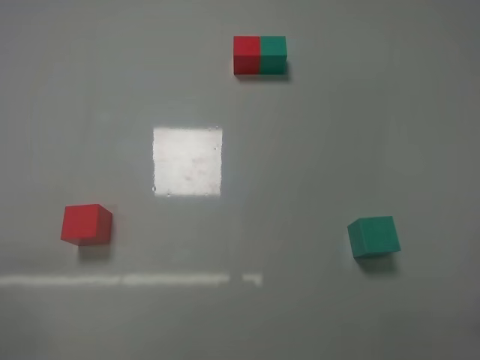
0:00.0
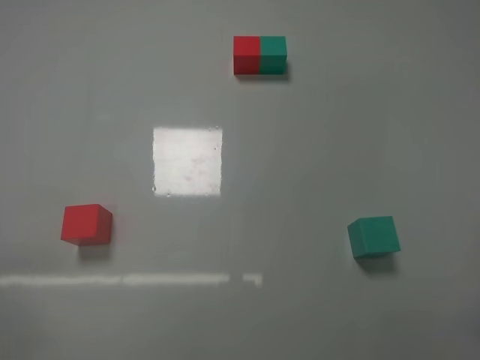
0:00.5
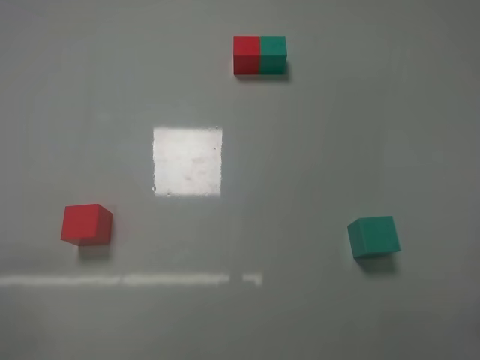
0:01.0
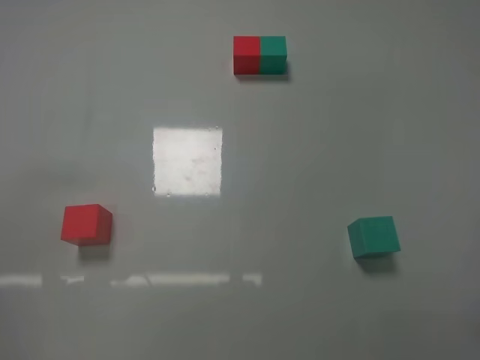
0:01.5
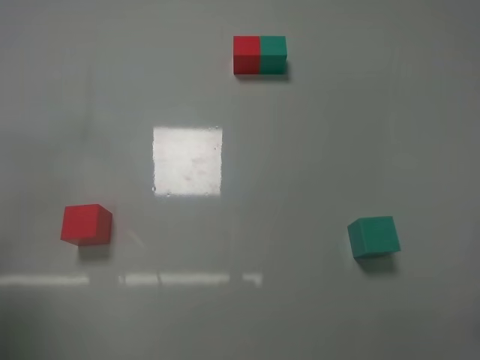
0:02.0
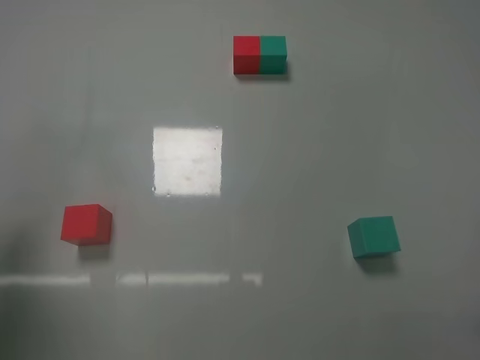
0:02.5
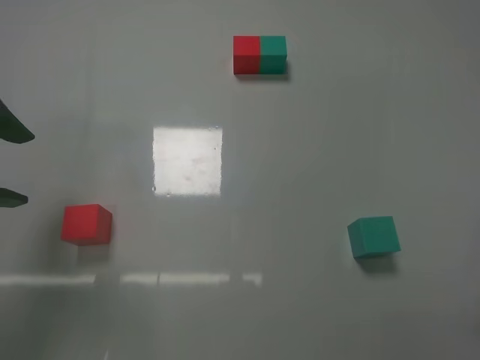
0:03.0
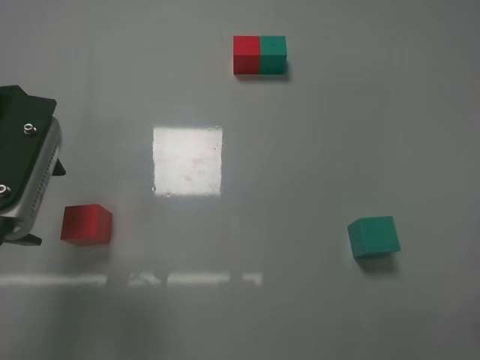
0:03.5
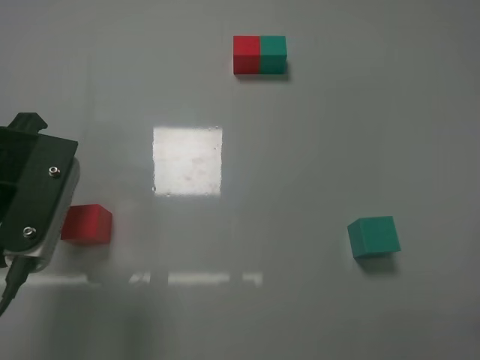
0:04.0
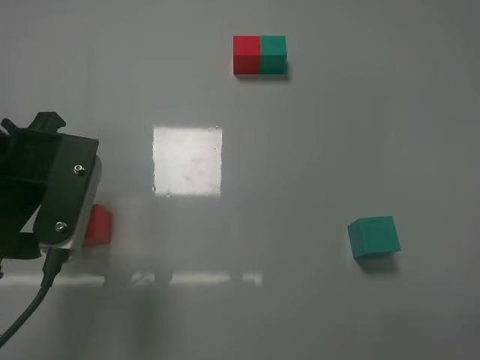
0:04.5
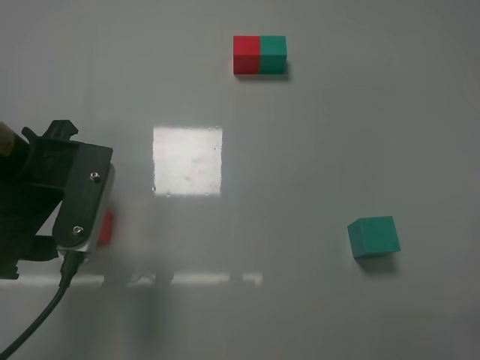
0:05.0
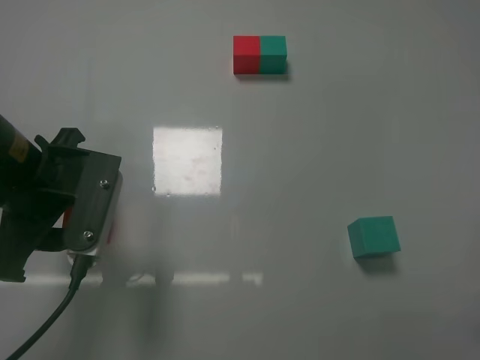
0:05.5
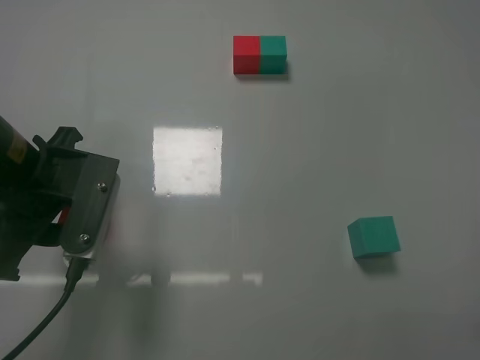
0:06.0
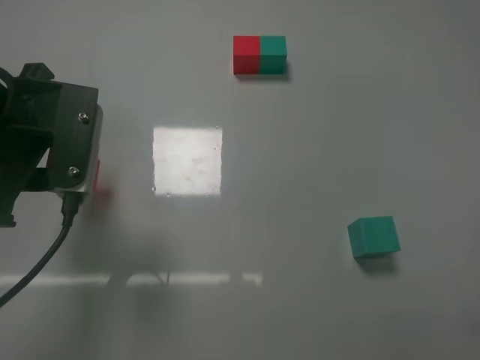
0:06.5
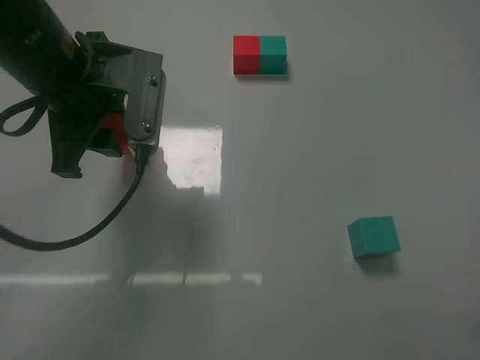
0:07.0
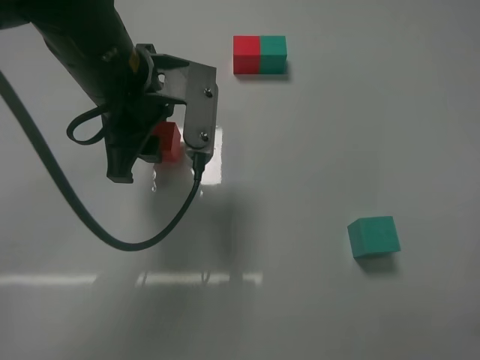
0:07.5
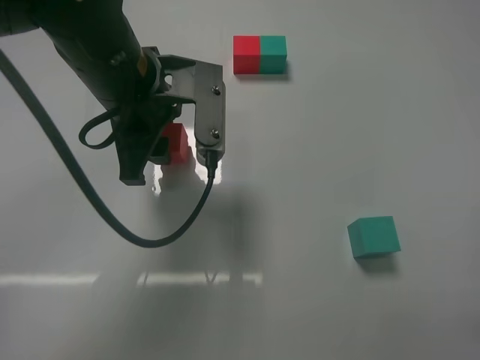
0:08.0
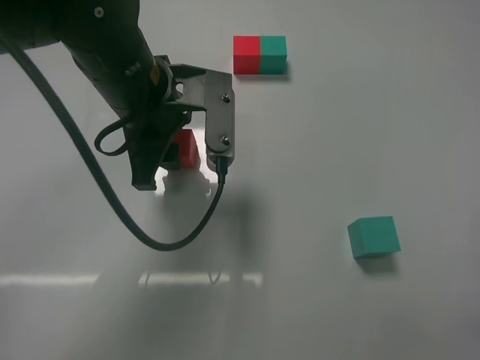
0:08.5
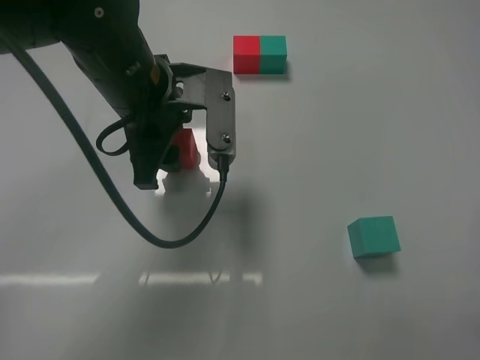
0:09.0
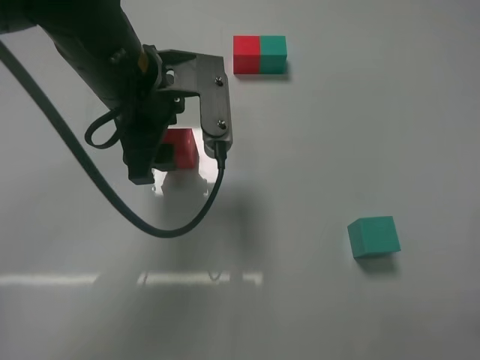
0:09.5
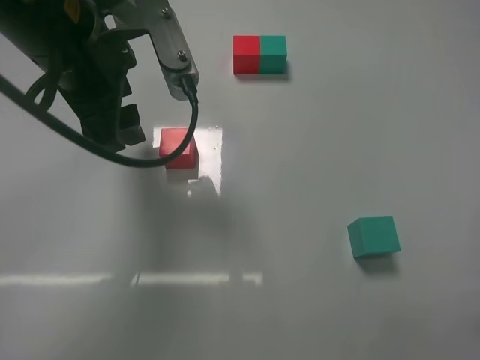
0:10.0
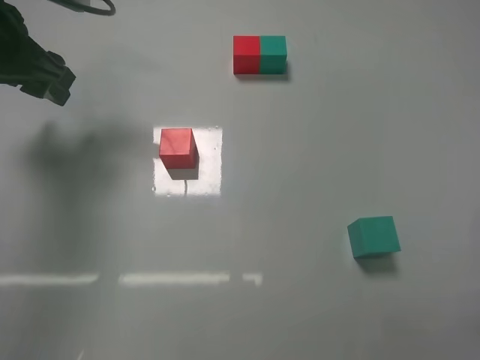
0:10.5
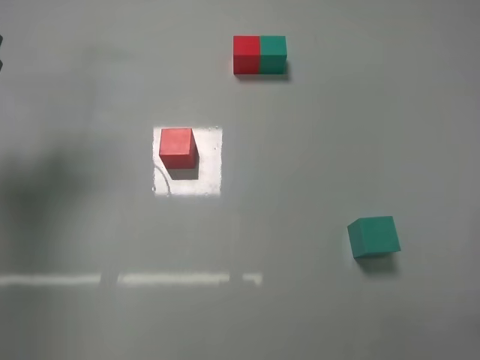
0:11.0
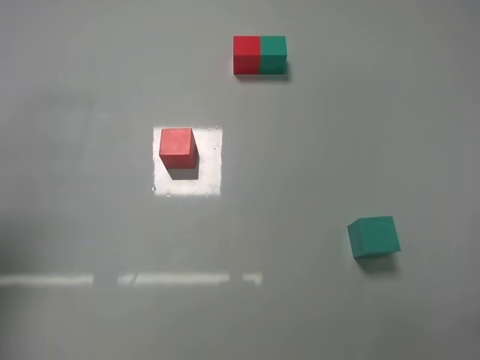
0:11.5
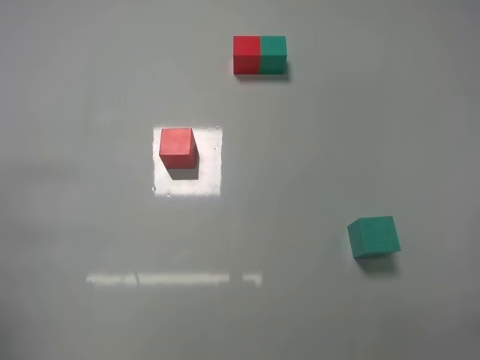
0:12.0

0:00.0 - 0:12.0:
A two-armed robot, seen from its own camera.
Task of the whole recording: According to the building block template in front, assemble the scattered blocks together.
Step, 0:00.0 - 0:05.5: Grasp the red block with left gripper.
Step, 0:06.0 - 0:09.5: Adjust the position of the cube with the left gripper.
0:00.0 - 0:02.0: The left gripper goes some 20 cm upward and forward.
0:02.0 - 0:04.0: The left gripper moves to the right, forward and downward, approximately 15 cm.
0:04.0 - 0:06.0: The left gripper closes.
0:06.0 - 0:08.0: The left gripper shifts some 15 cm to the right, upward and forward.
0:08.0 - 0:10.0: The left gripper changes place by approximately 5 cm, and opens.
0:10.0 - 0:12.0: The left gripper moves to the left, backward and downward, some 30 cm.

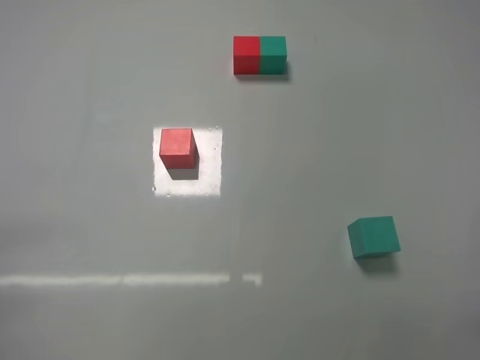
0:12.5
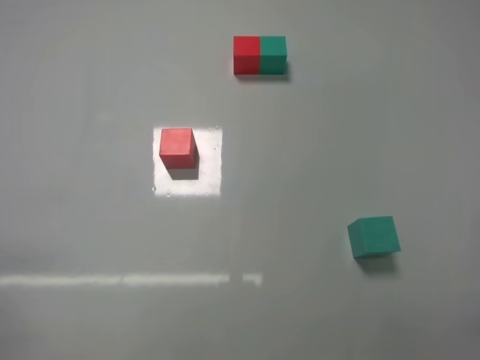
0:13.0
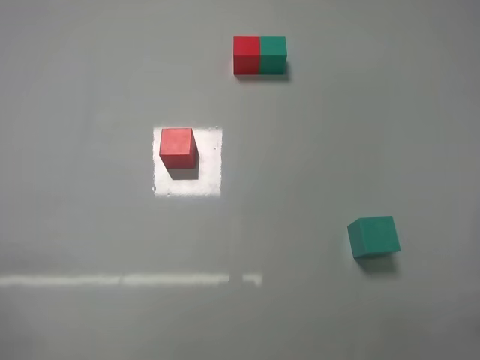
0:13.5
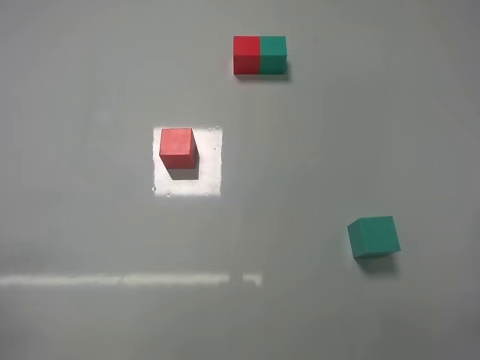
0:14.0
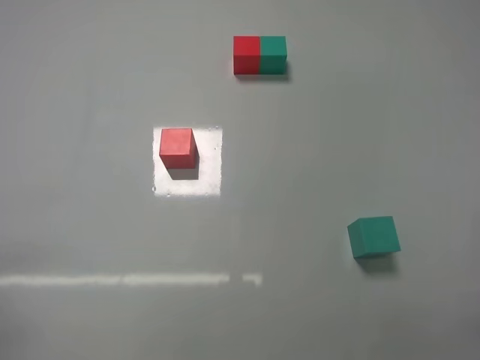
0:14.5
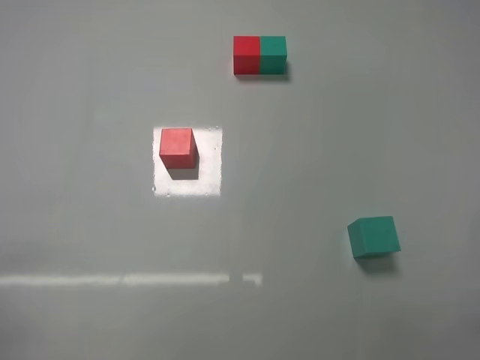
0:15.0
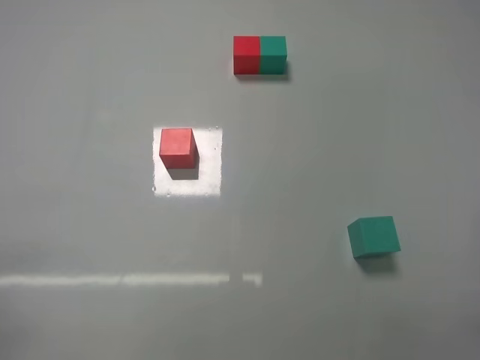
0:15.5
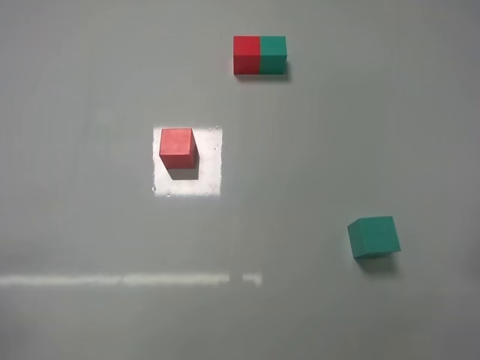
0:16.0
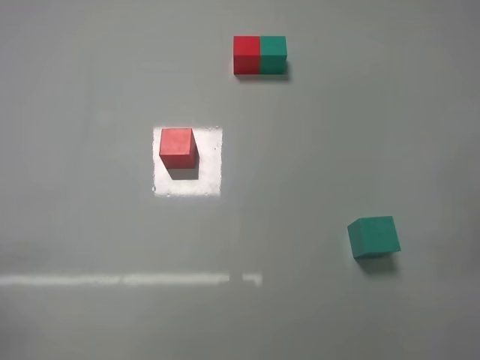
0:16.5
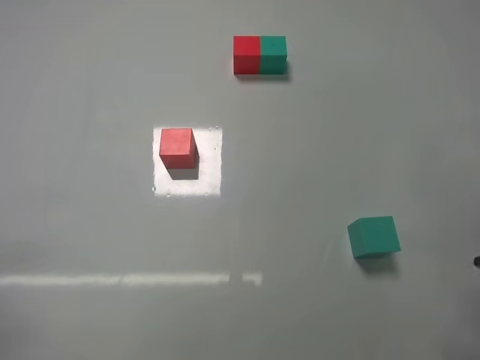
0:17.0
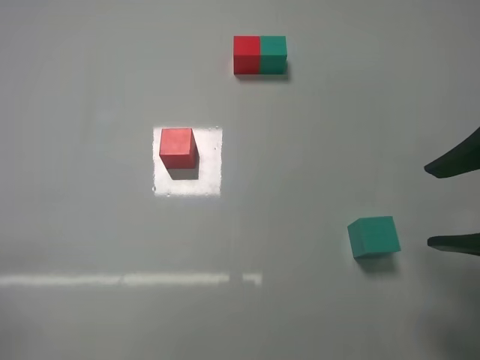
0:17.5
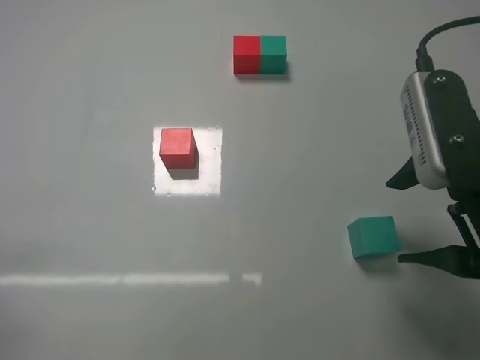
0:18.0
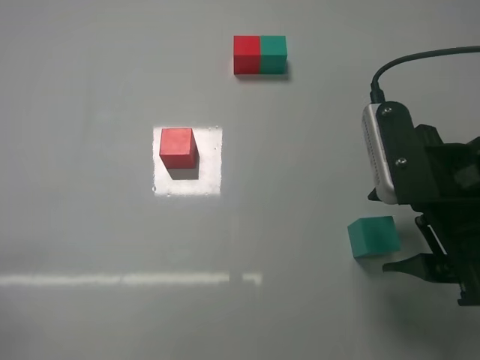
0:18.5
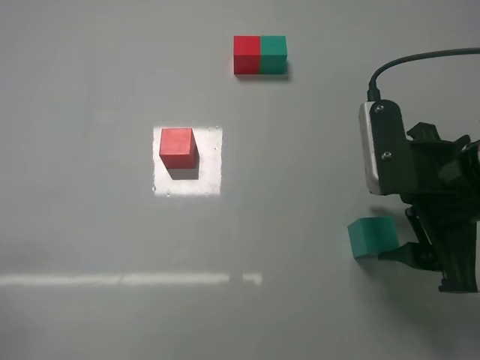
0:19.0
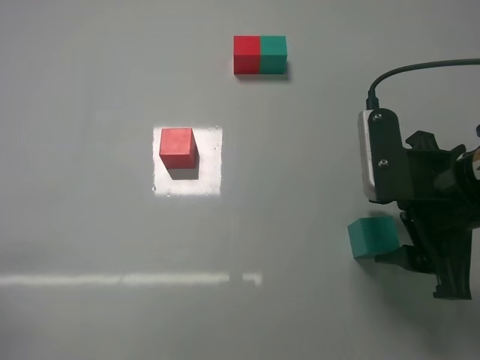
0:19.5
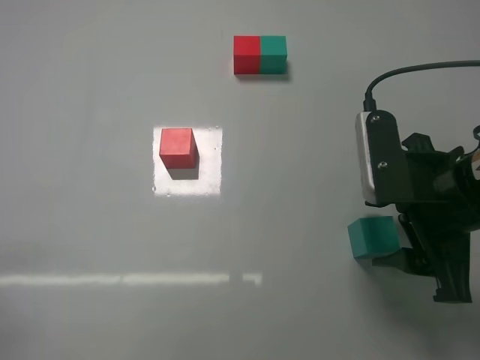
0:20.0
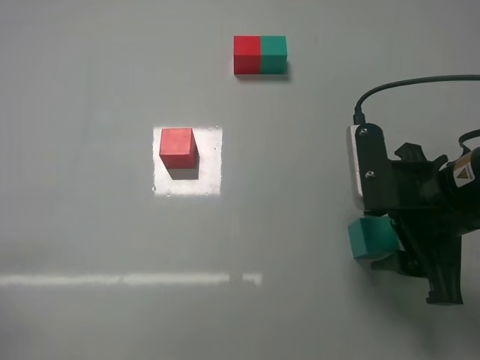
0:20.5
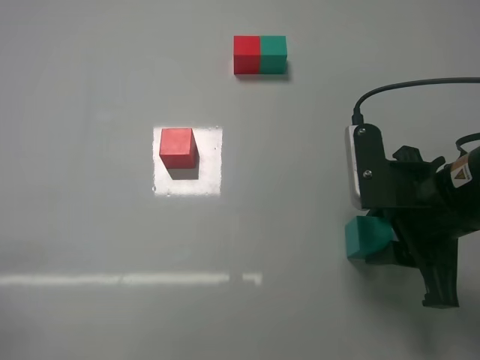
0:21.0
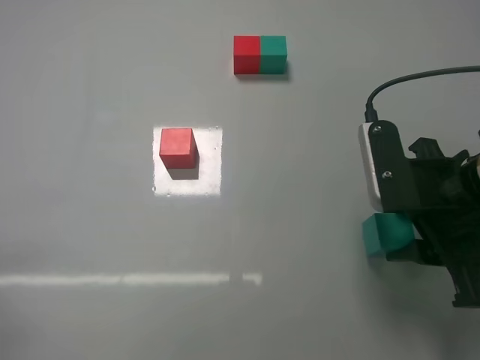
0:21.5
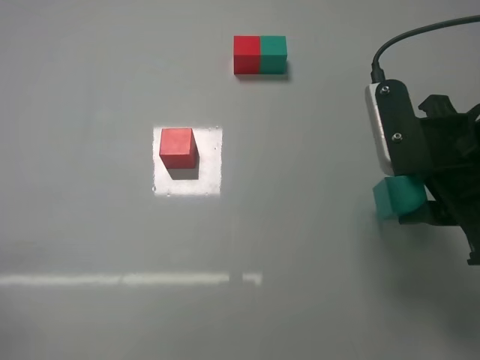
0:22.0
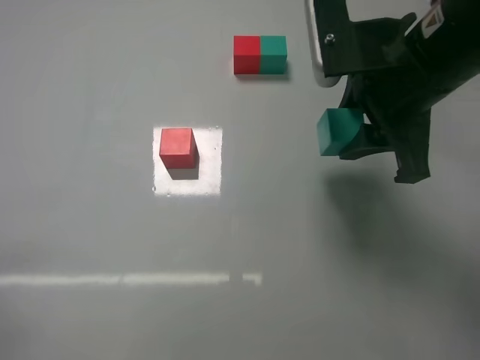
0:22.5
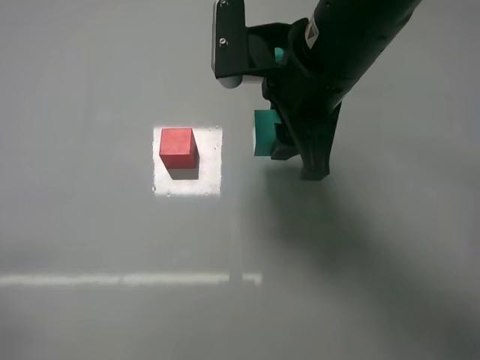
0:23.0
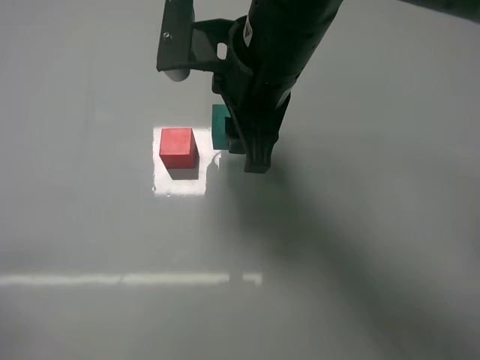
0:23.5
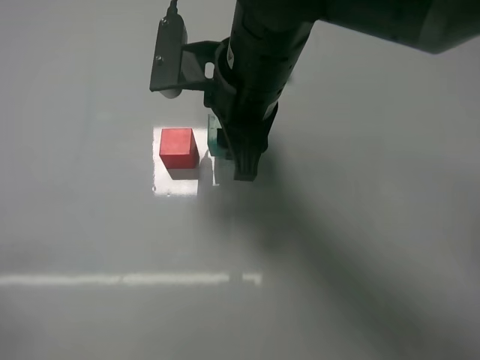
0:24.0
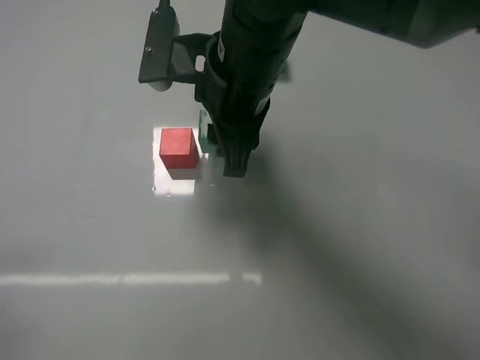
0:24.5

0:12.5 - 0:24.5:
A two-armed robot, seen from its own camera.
Task of the whole recording: According to the building block template in front, assemble the scattered blocks together.
Step, 0:12.5 - 0:20.5: Grasp the green block with right gripper.
0:16.5 - 0:18.5: The right gripper goes roughly 15 cm forward and to the left.
0:18.5 - 0:20.5: The right gripper closes its fingers.
0:20.5 - 0:22.5: The right gripper travels upward and to the left by about 10 cm, and closes up.
0:22.5 - 0:24.5: The right gripper moves to the left, approximately 15 cm.

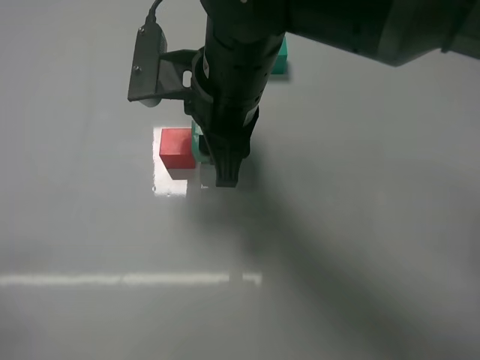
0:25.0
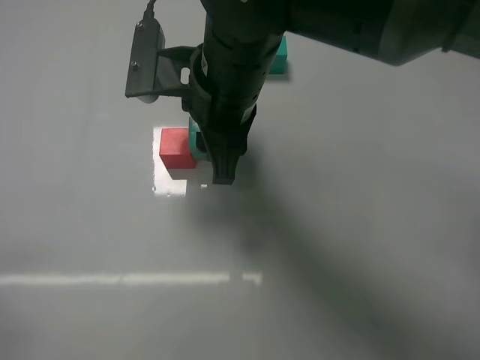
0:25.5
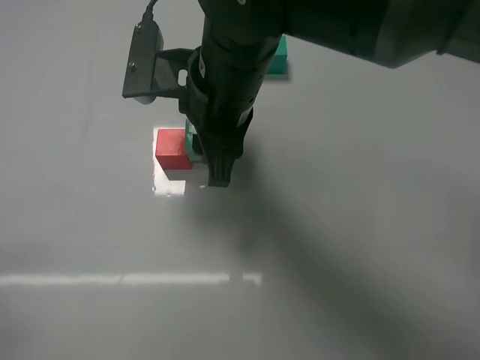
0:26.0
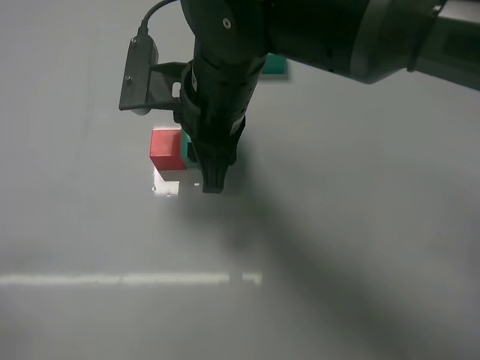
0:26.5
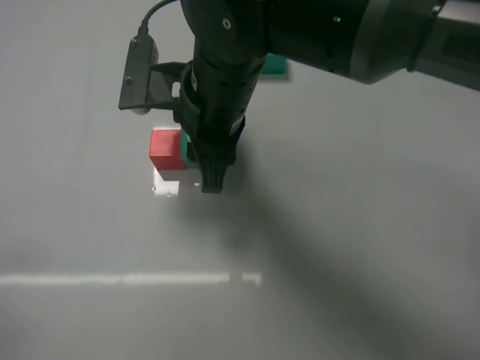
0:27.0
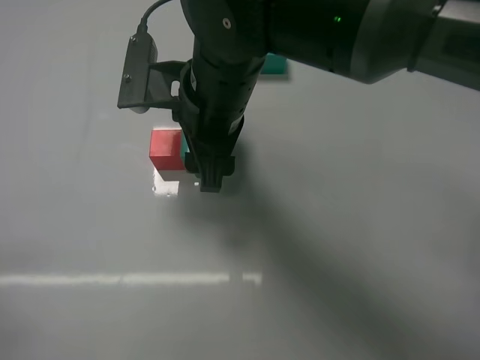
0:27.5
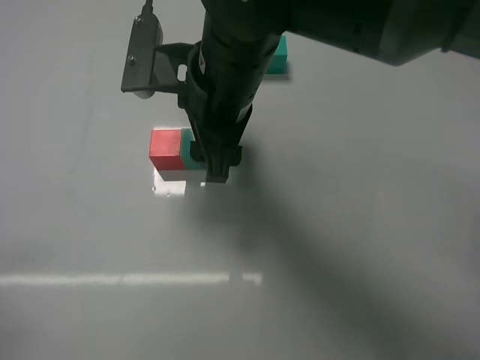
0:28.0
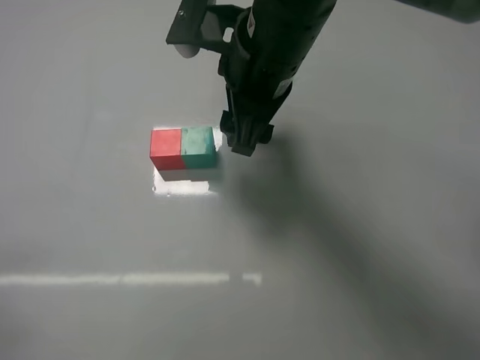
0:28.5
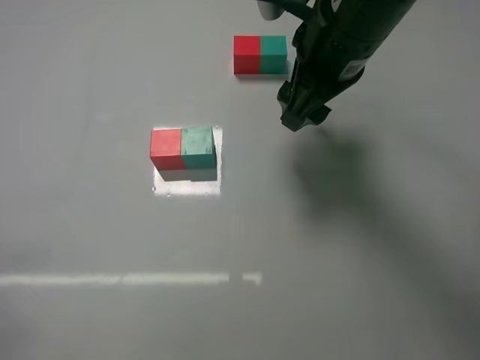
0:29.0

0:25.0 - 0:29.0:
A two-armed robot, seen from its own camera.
Task of the whole recording: According to the building block template in front, assemble the scattered blocks together.
Step, 0:25.0 - 0:27.5: Put the green cube on the right of the red cube with the right gripper.
0:25.0 - 0:27.0: The grippers stay close to where they were, moving slightly.
0:27.0 - 0:29.0: The right gripper travels to the right and upward by roughly 15 cm, and opens.
